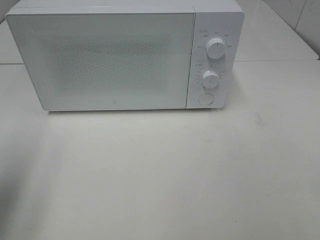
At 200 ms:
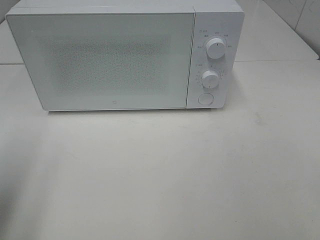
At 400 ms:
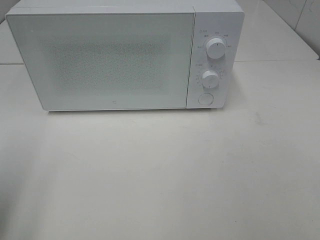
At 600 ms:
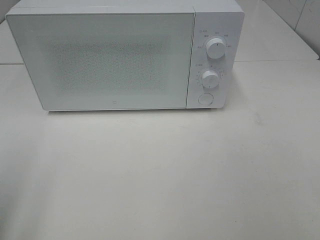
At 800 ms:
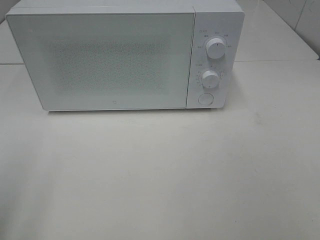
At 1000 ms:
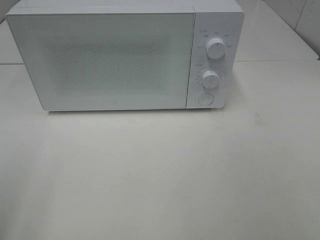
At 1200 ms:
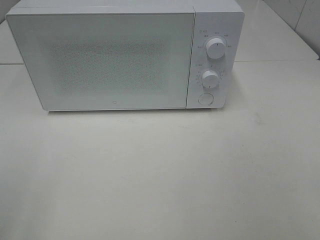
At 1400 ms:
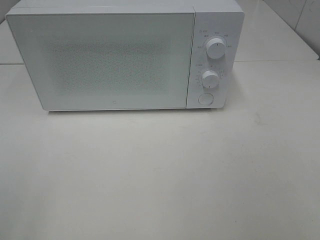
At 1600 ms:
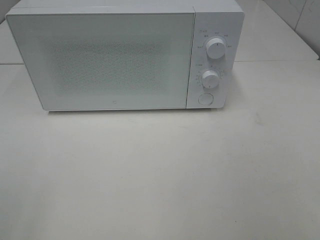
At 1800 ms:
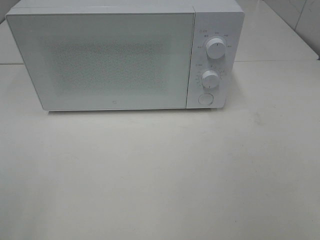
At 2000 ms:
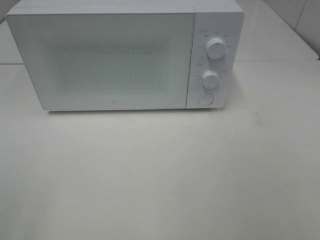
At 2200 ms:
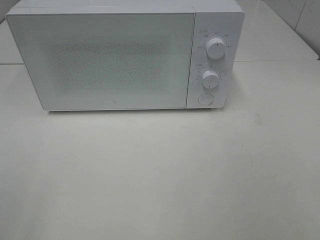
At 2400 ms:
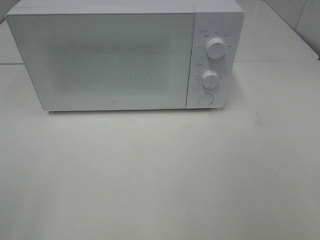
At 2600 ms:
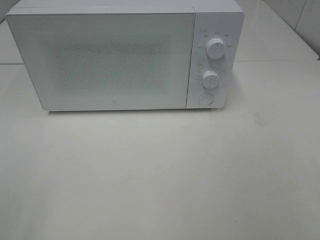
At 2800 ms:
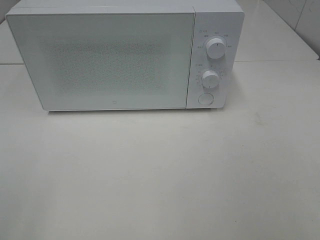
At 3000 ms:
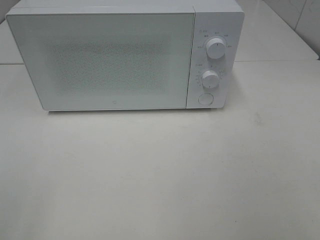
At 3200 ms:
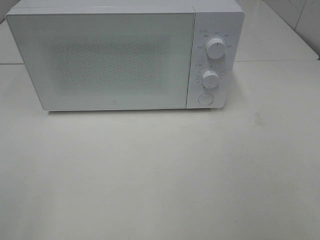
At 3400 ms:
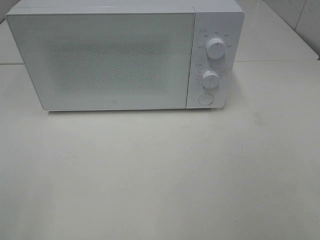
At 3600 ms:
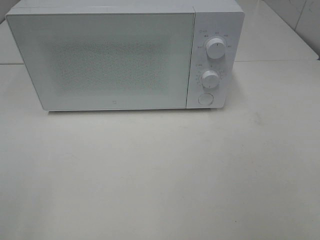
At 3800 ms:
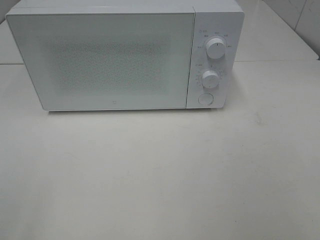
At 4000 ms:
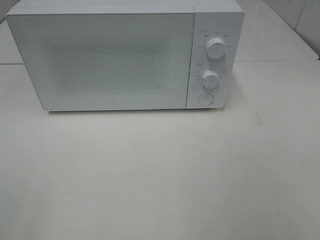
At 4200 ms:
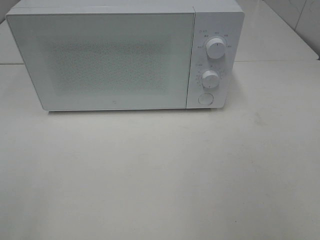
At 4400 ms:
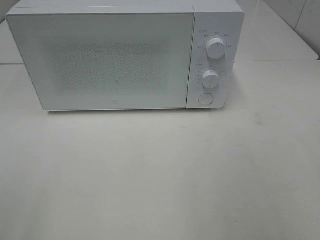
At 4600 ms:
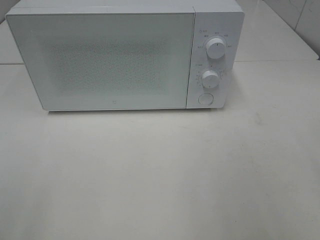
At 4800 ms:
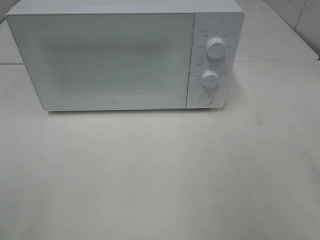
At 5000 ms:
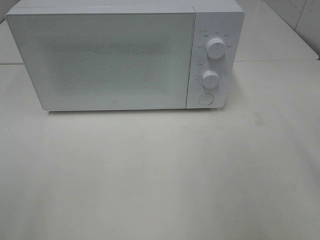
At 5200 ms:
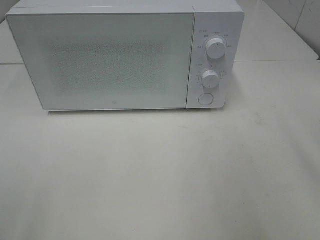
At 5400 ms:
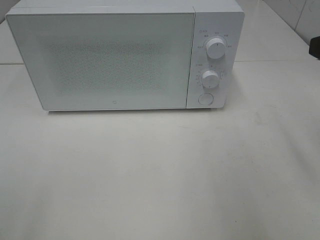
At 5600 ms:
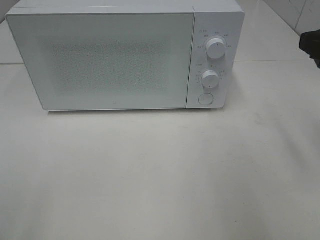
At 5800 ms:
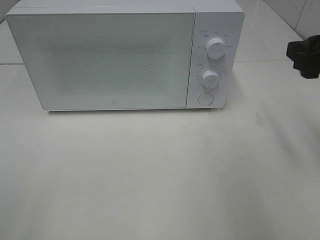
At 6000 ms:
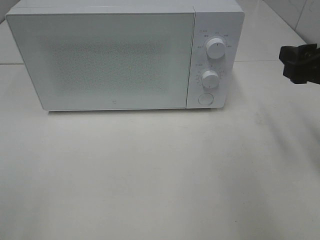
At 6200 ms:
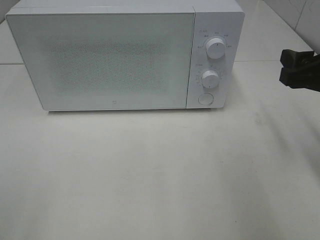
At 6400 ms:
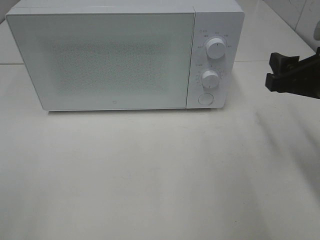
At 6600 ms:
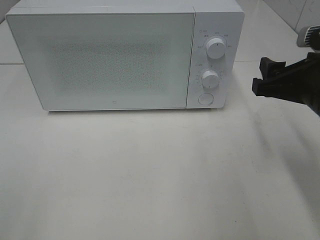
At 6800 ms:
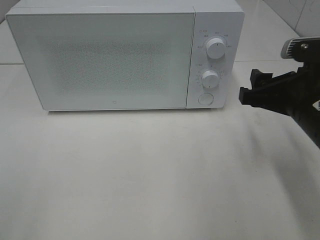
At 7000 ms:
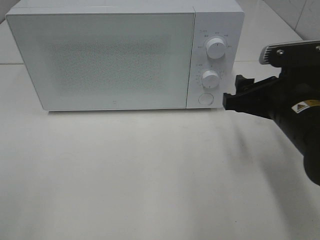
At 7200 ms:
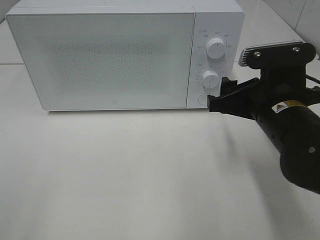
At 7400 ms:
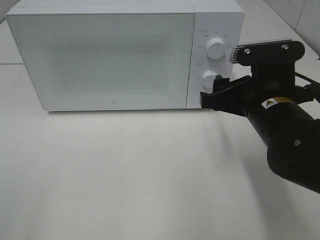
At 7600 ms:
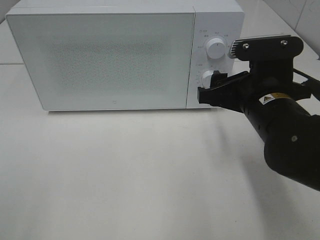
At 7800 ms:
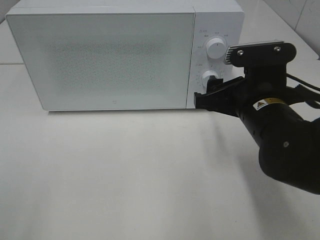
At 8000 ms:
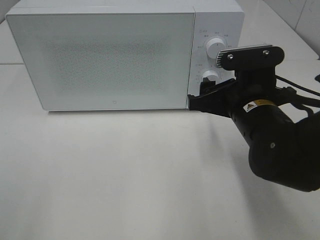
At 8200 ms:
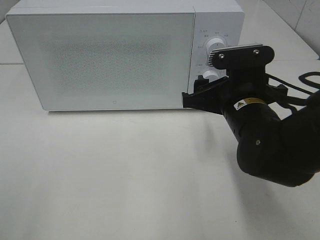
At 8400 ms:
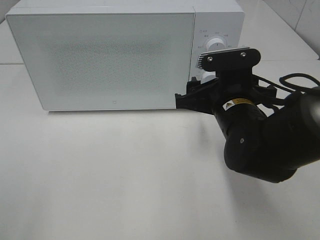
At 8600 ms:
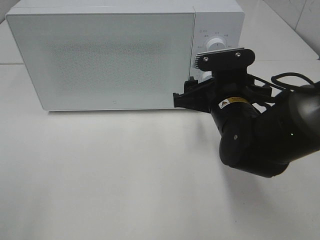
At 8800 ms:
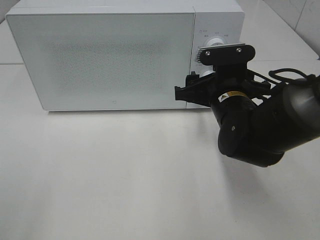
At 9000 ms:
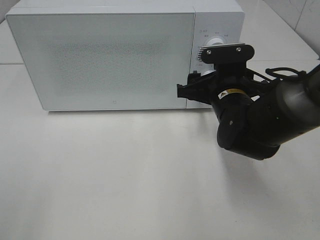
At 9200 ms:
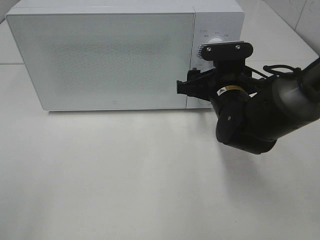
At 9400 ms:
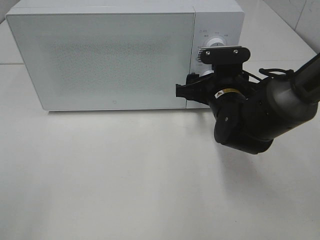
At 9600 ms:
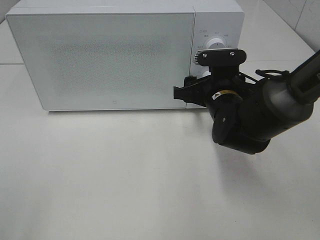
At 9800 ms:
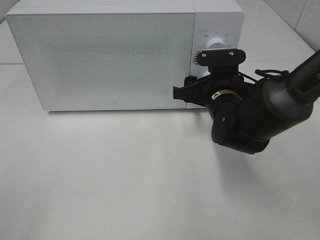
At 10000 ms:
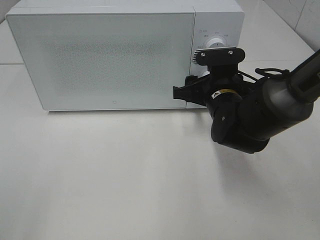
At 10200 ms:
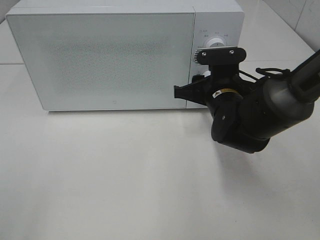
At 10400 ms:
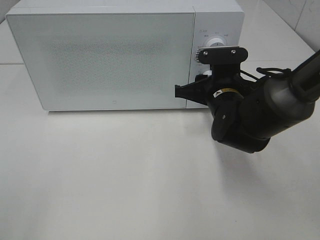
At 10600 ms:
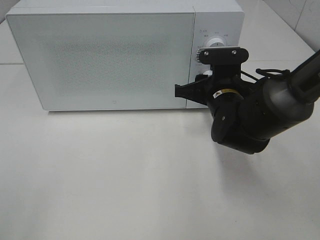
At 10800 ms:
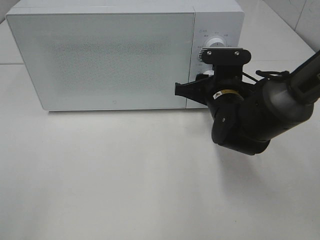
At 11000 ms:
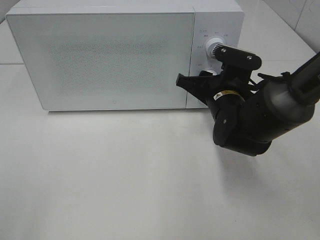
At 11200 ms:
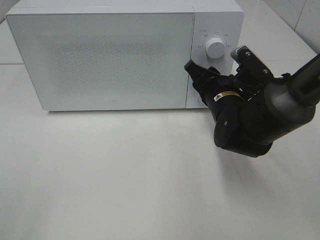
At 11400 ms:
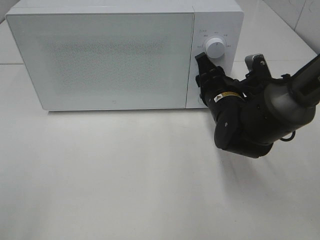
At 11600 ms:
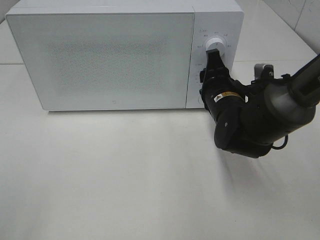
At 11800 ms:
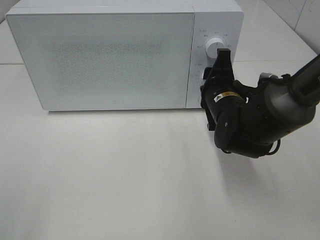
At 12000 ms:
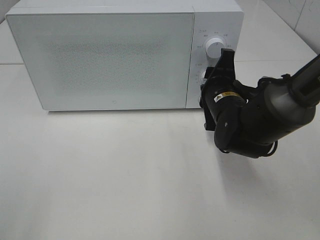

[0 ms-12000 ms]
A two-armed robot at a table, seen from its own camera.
Task of the whole recording: Heat the burger.
0 ms to 1600 ms: The left gripper moves backward, roughly 15 cm.
1600 ms to 3000 ms: Both grippers stay about where they are.
4400 ms to 6000 ms: The right gripper travels forward and downward by some 15 cm.
6000 ms to 7600 ms: The right gripper heads to the left and downward, covering approximately 10 cm.
7600 ms to 9000 ms: The right gripper is displaced forward by some 5 cm.
9000 ms to 10400 ms: The right gripper closes.

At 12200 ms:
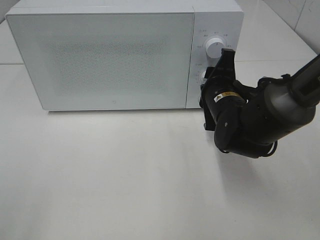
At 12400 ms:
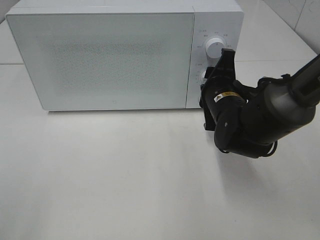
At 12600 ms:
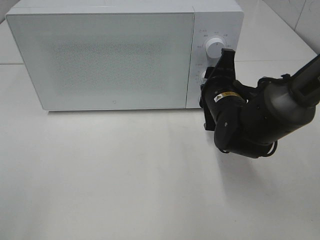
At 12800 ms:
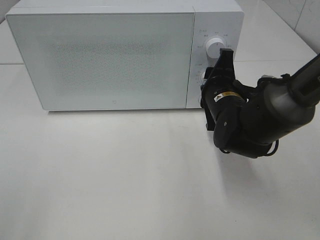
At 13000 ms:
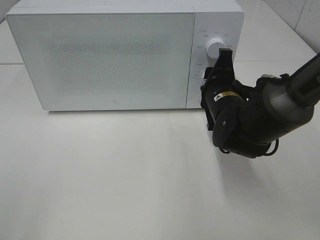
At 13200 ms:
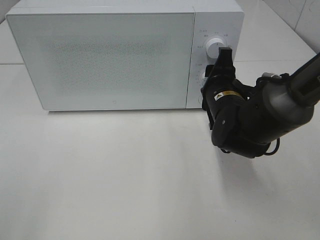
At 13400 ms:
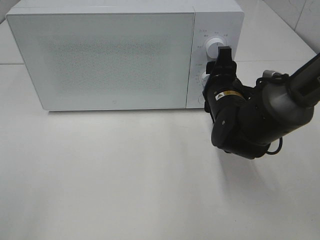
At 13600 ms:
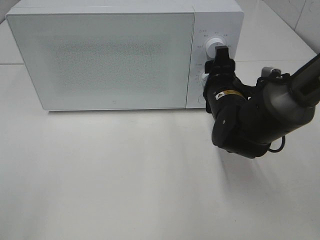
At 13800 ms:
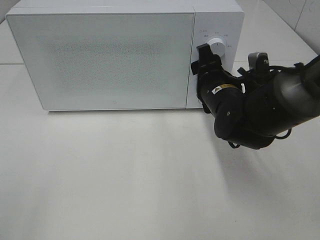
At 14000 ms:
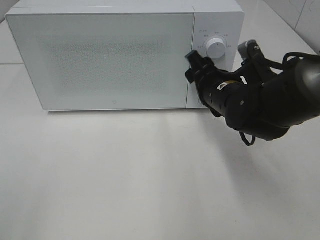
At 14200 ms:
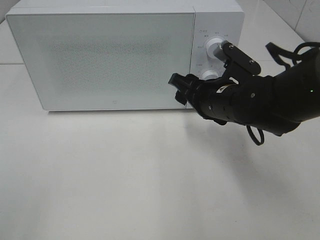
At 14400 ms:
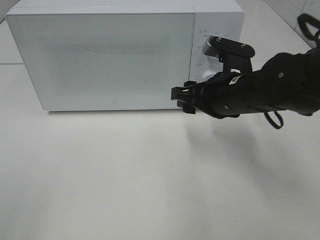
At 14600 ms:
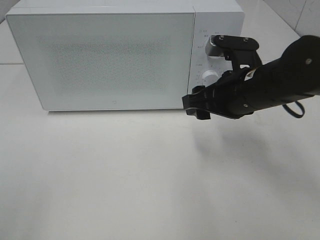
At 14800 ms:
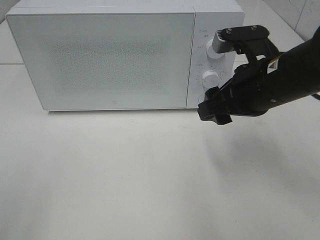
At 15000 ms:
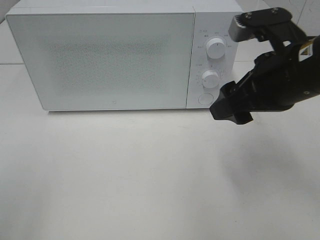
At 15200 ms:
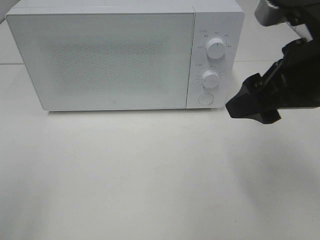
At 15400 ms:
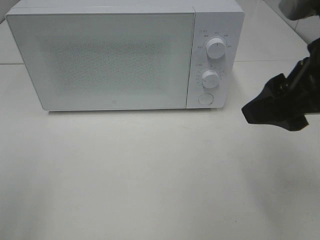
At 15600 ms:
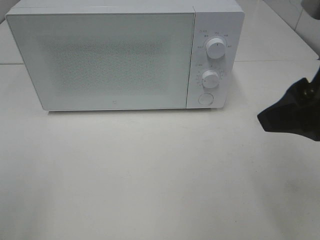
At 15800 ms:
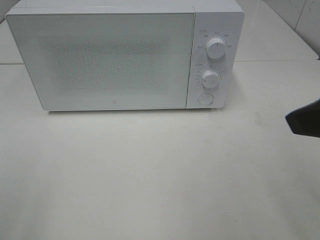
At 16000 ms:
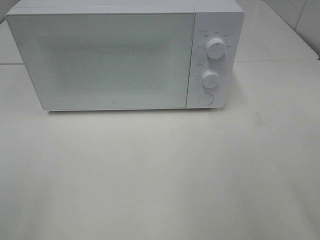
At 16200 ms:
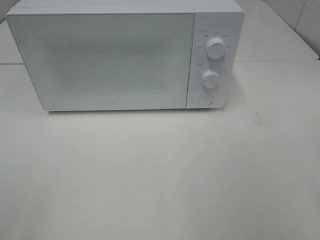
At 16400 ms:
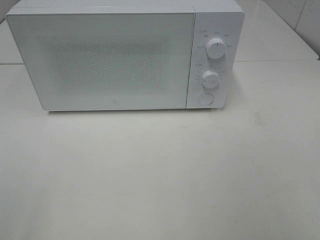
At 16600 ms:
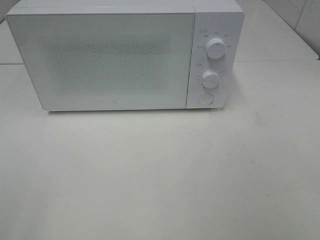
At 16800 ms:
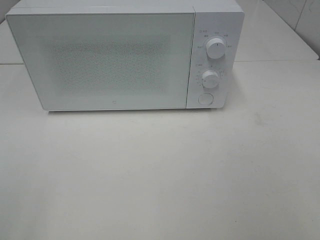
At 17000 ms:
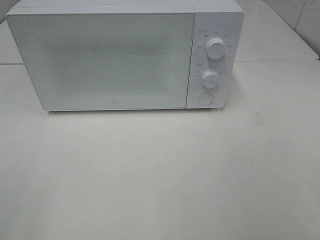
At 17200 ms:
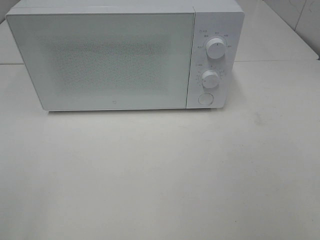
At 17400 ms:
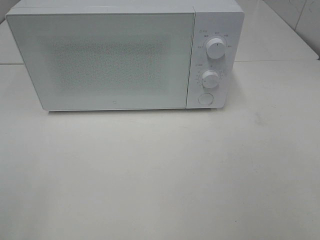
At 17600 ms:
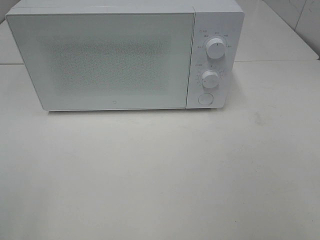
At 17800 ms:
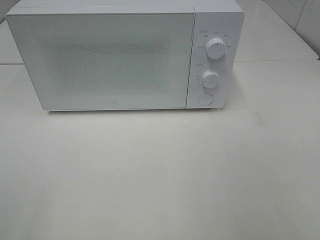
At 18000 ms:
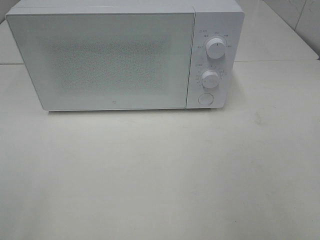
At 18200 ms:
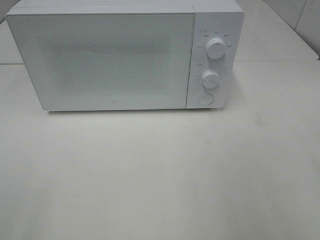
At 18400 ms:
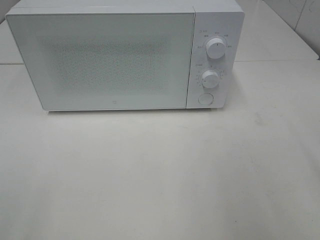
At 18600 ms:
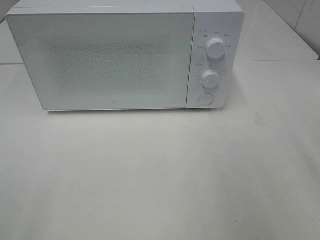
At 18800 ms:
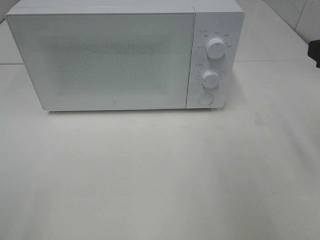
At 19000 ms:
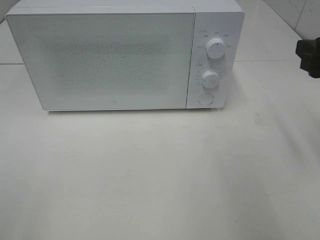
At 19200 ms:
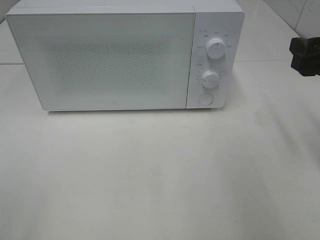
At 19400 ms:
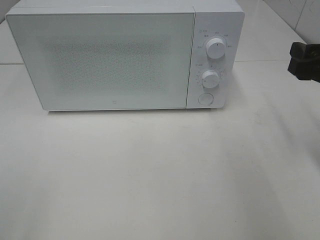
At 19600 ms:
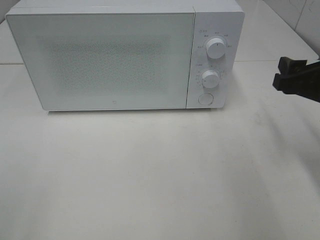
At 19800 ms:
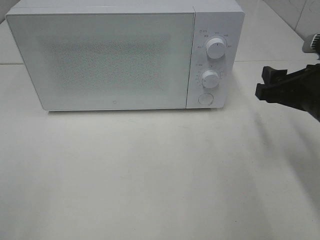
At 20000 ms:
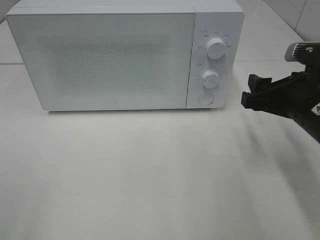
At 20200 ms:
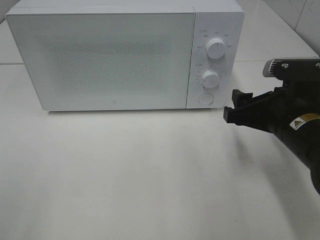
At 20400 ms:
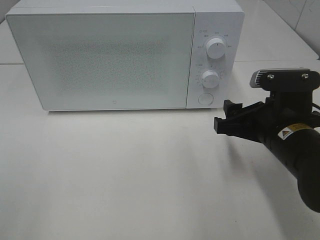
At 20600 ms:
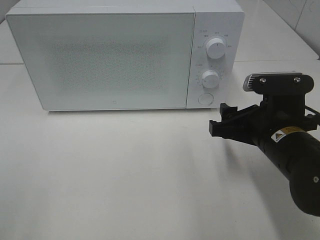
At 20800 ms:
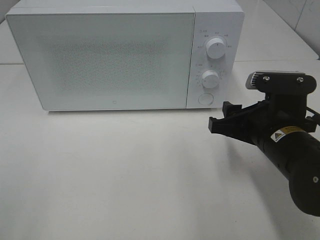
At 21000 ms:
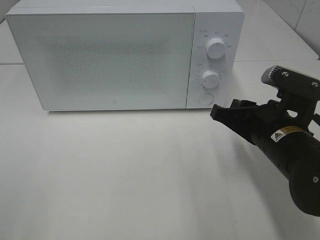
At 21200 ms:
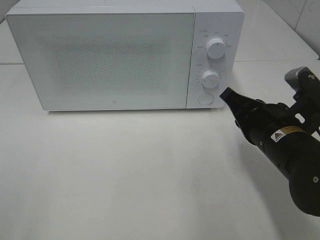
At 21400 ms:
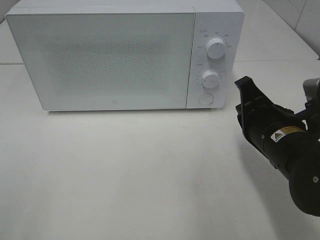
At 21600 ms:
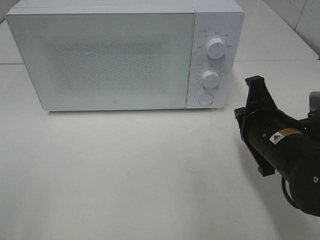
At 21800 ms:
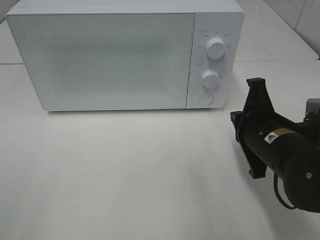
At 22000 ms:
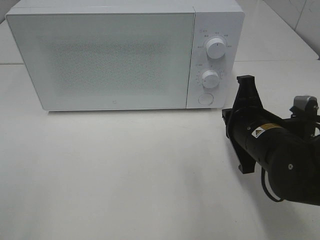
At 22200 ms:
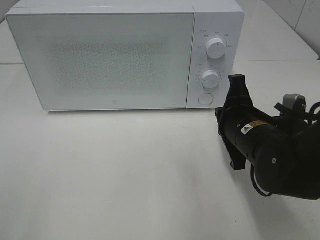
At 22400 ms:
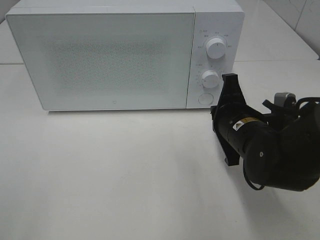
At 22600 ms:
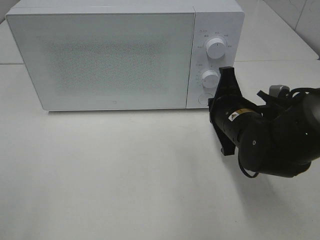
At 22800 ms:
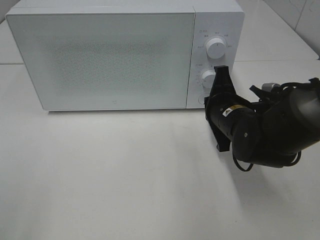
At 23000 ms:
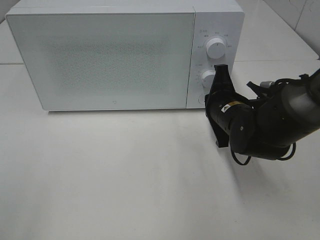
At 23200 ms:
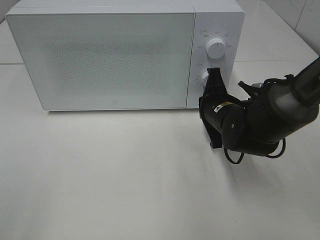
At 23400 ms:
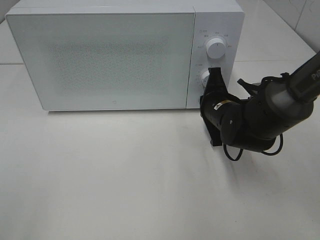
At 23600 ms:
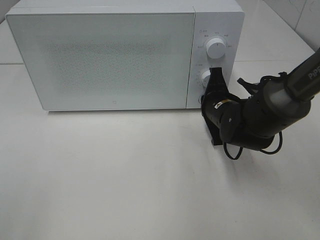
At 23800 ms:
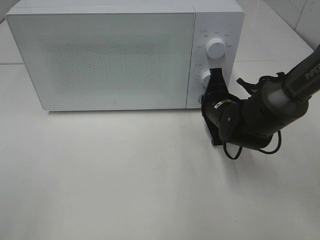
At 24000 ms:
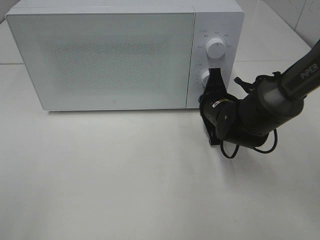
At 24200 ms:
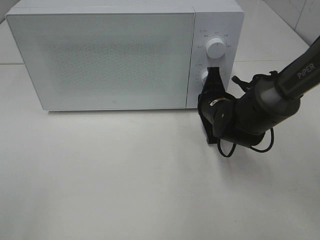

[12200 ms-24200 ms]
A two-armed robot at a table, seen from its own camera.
Task of the whole recording: Heat the burger.
13800 ms to 15200 ms: The right gripper travels upward, backward and to the right by about 20 cm.
15200 ms to 16600 ms: The right gripper moves backward and to the right, about 20 cm.
18200 ms to 19800 ms: The right gripper moves forward and downward, approximately 20 cm.
19800 ms to 21200 ms: The right gripper shifts roughly 5 cm to the left, and closes up.
21200 ms to 22600 ms: The right gripper heads forward, covering roughly 5 cm.
22600 ms to 24200 ms: The right gripper moves forward, about 5 cm.
